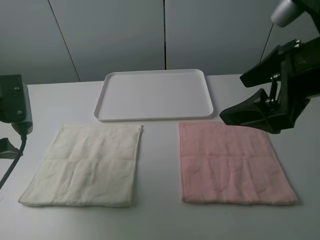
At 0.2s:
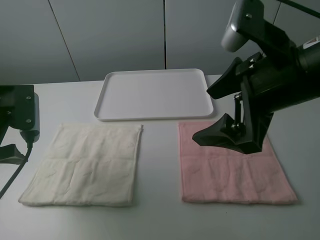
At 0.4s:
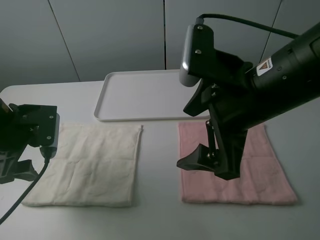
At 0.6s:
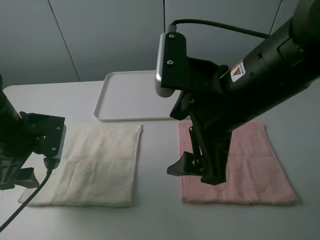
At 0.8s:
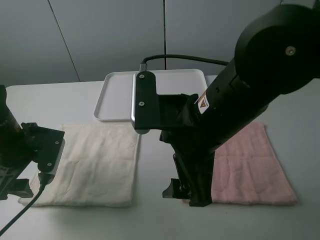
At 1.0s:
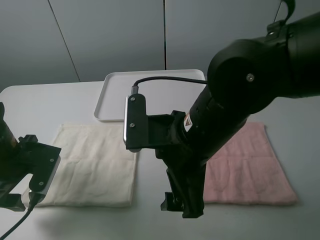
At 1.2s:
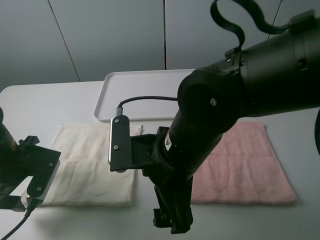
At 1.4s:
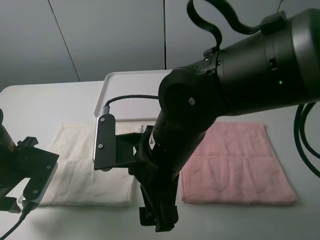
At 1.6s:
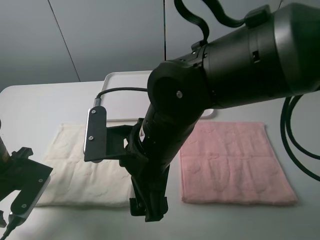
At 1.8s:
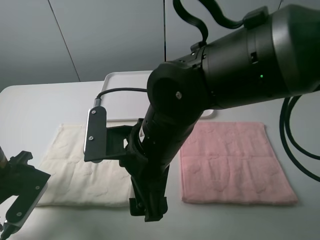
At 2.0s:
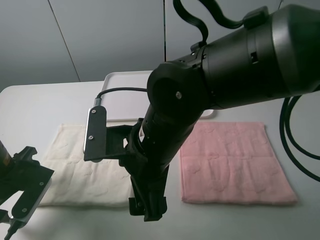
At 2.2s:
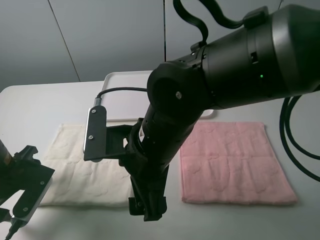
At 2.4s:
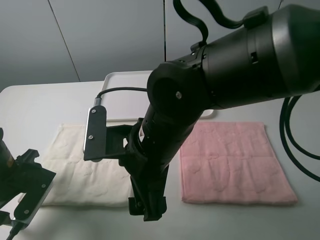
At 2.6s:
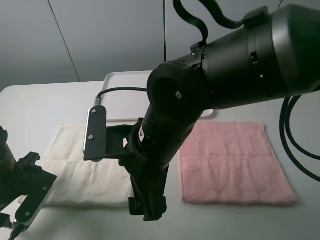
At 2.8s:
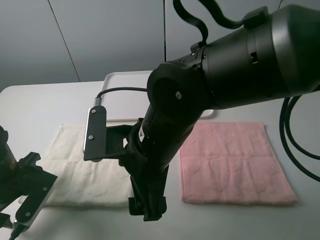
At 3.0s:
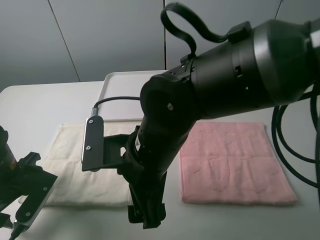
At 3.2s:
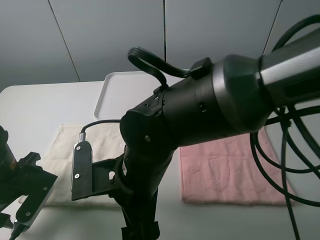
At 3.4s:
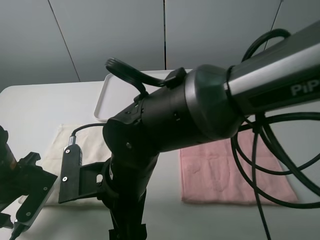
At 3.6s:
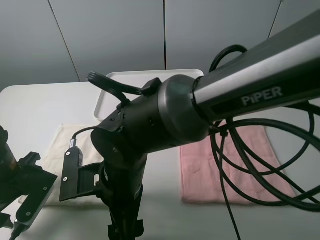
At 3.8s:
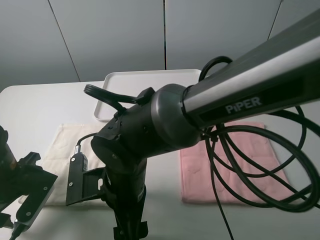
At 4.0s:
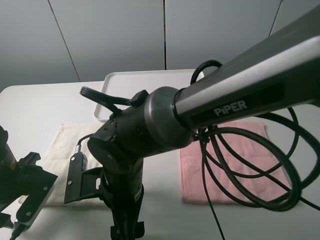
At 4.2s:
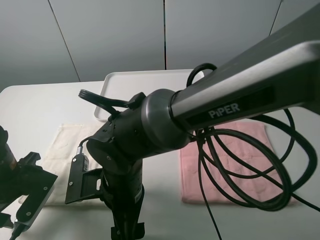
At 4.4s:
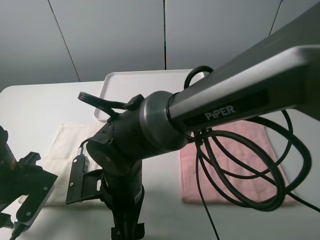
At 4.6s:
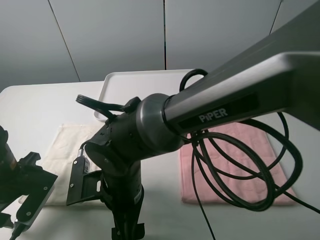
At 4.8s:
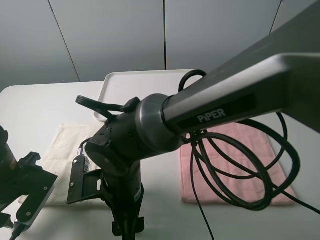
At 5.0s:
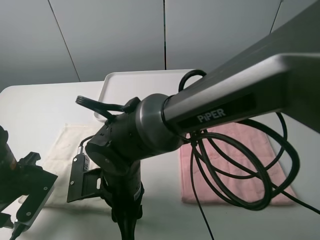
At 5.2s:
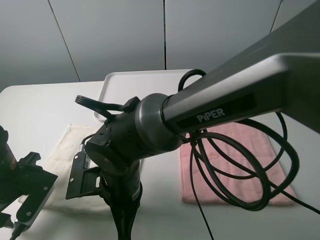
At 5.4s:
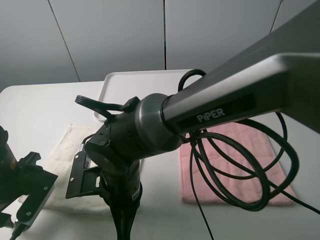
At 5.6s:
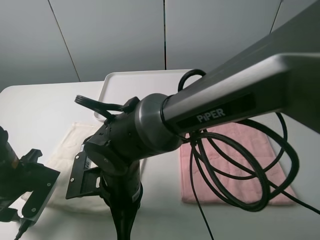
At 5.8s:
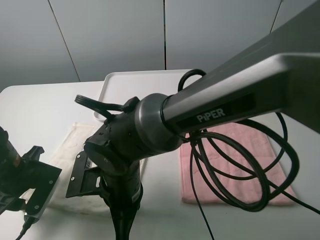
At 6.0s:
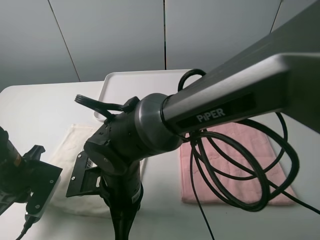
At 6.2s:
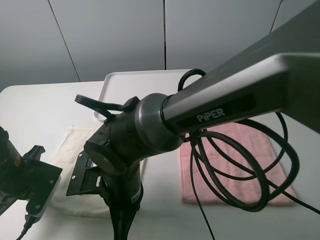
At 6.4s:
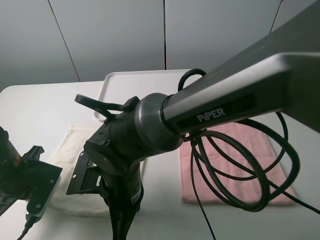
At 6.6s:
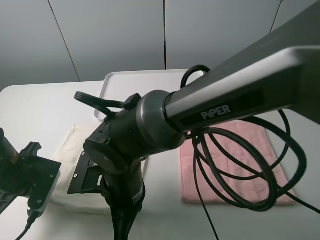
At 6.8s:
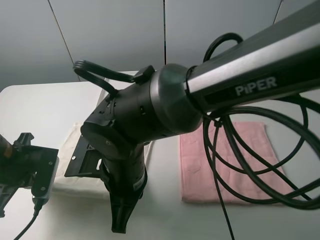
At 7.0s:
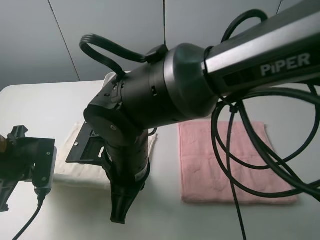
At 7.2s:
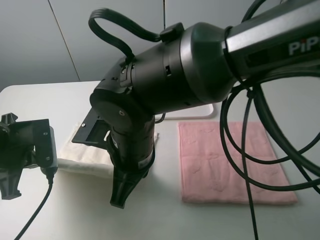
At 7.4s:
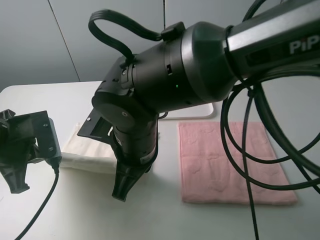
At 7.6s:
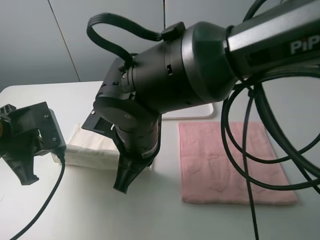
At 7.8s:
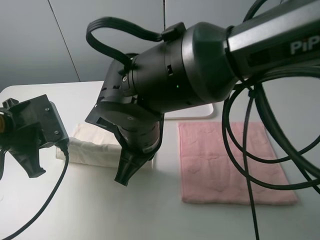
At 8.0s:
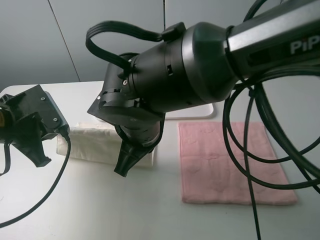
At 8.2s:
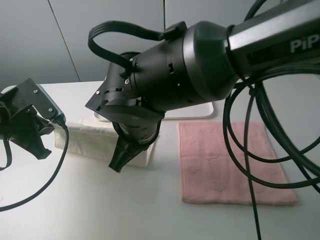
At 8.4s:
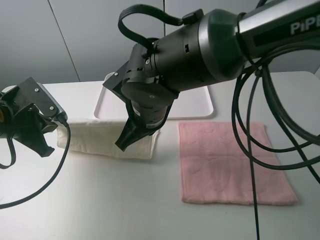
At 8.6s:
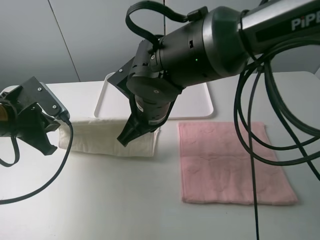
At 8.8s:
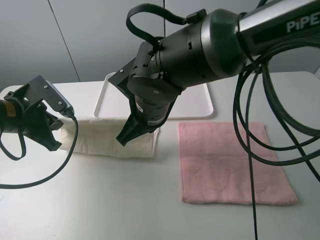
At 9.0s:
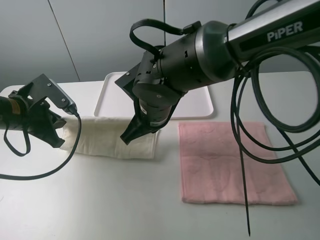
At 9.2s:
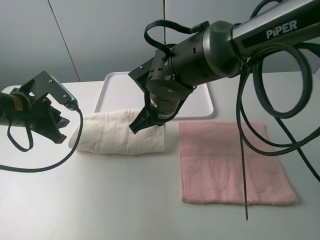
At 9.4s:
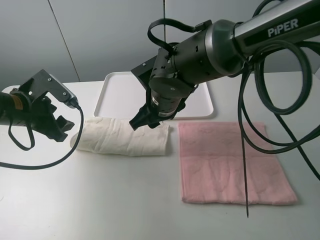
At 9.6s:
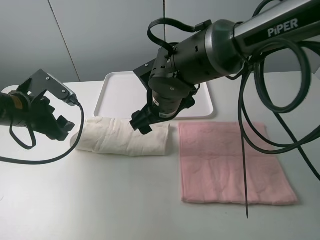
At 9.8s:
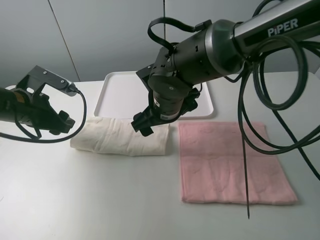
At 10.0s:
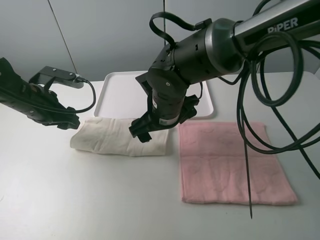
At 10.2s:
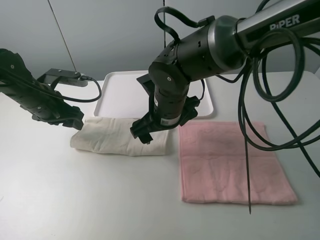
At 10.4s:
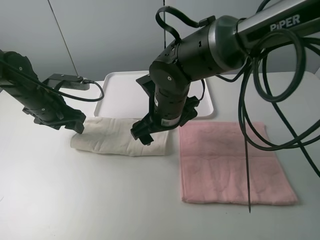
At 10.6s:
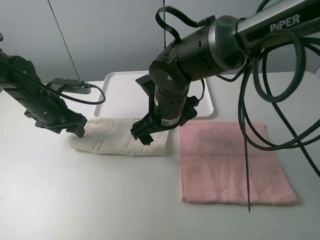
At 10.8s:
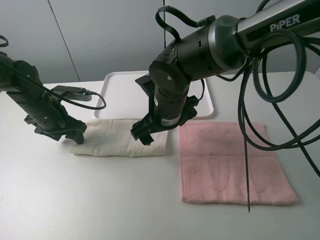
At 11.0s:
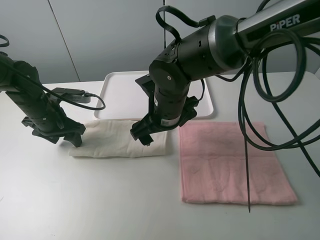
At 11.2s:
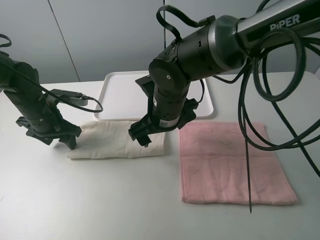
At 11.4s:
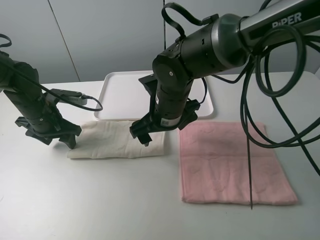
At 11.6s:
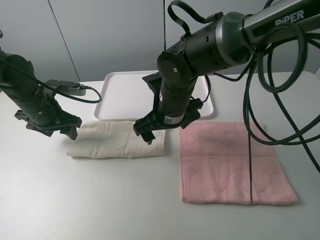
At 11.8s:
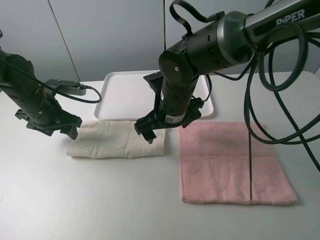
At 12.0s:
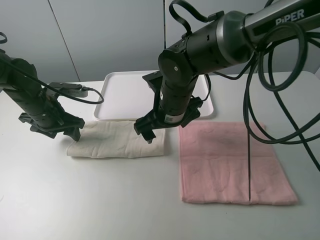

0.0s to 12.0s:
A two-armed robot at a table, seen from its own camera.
Task of the whole recording: fold one of the towels by two grippers and place it on the tray,then fold another towel by two grippers and place it on the folded towel.
Step, 0.0s to 6.2s: Grasp the white towel with the left gripper.
Step, 6.6s to 9.0s: Fold the white towel upwards with the left gripper.
0.0s to 1.6s: The right gripper travels to the left and downward by approximately 20 cm, while the left gripper is displaced downward by some 10 cm.
3.0s to 4.4s: The right gripper goes approximately 5 cm downward.
4.4s to 6.0s: The left gripper closes its fingers. Meanwhile the right gripper closes its fingers.
6.0s to 7.6s: The grippers both shift upward by approximately 10 cm.
7.6s to 9.0s: Both grippers travel together forward, about 5 cm.
9.0s to 10.4s: The left gripper goes approximately 5 cm forward, and opens up. The right gripper opens up.
10.4s to 12.0s: The grippers make only small movements.

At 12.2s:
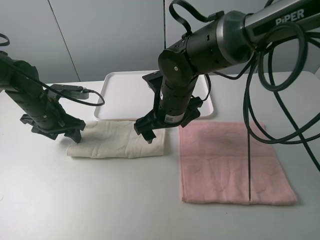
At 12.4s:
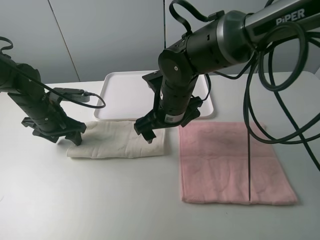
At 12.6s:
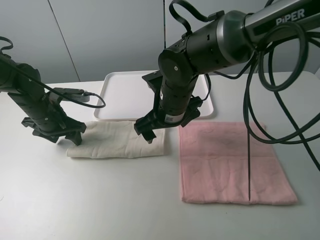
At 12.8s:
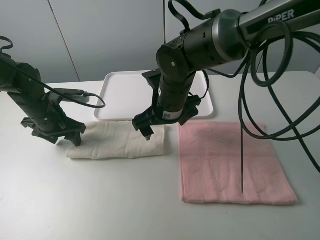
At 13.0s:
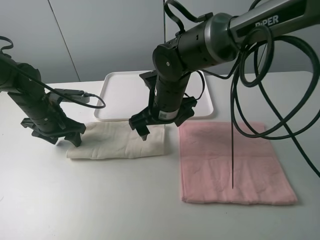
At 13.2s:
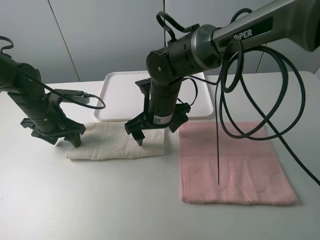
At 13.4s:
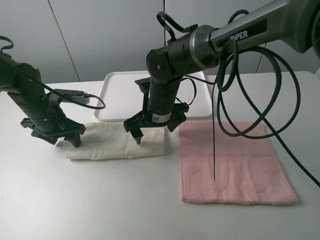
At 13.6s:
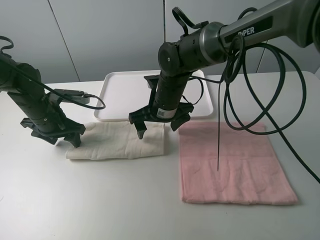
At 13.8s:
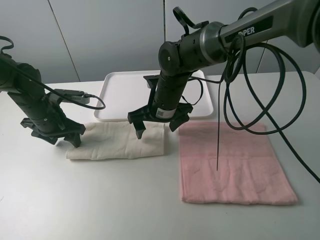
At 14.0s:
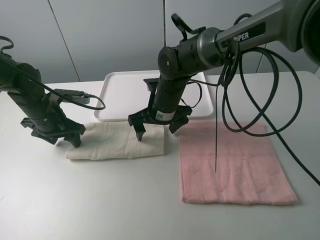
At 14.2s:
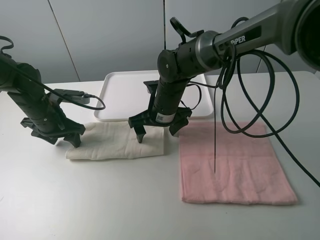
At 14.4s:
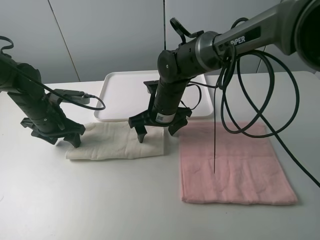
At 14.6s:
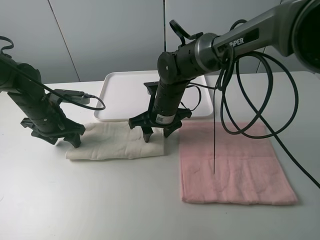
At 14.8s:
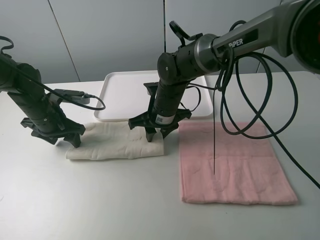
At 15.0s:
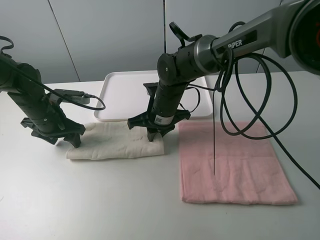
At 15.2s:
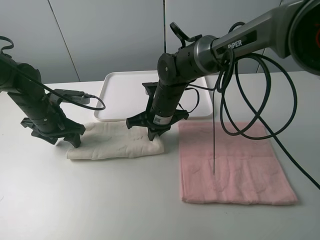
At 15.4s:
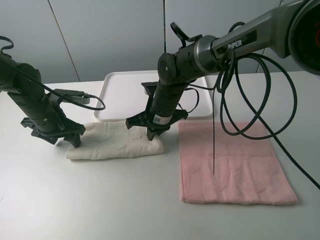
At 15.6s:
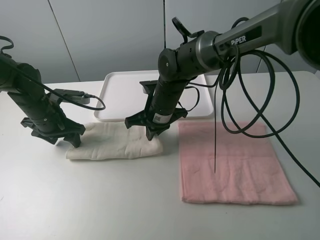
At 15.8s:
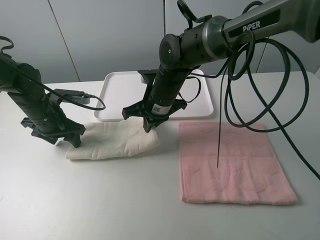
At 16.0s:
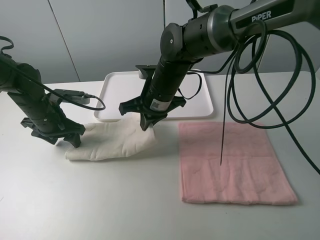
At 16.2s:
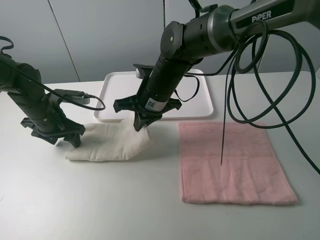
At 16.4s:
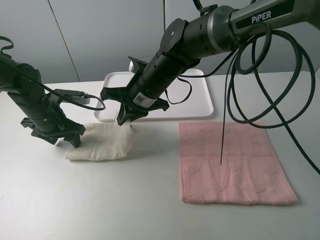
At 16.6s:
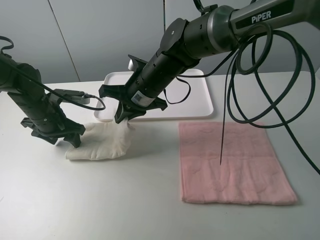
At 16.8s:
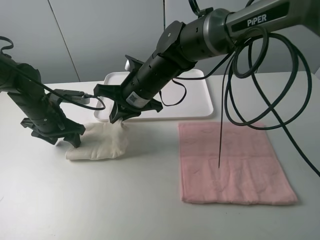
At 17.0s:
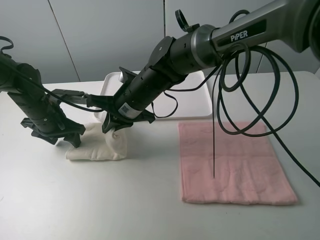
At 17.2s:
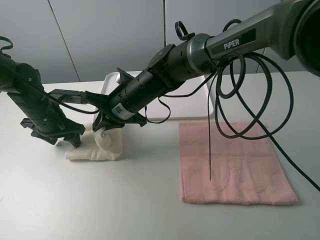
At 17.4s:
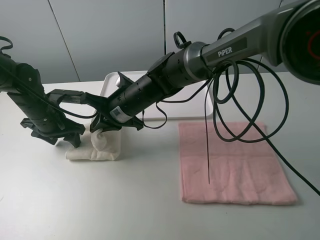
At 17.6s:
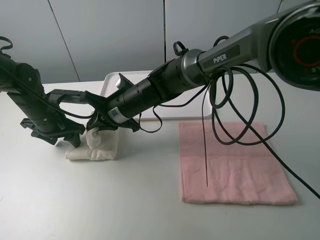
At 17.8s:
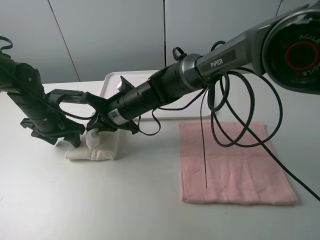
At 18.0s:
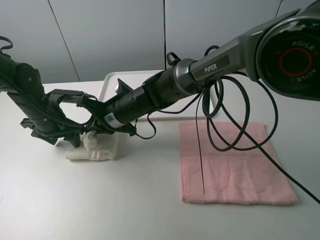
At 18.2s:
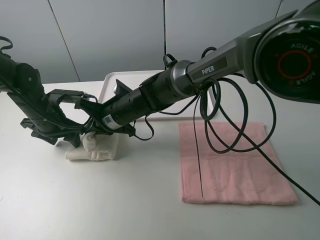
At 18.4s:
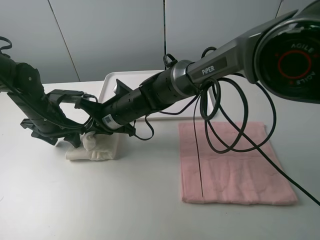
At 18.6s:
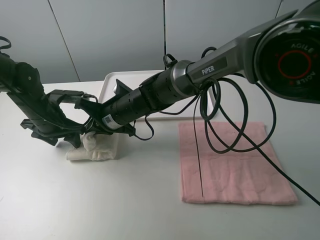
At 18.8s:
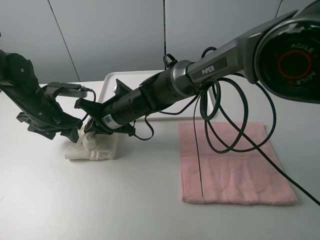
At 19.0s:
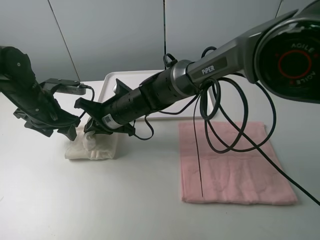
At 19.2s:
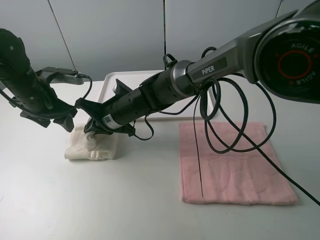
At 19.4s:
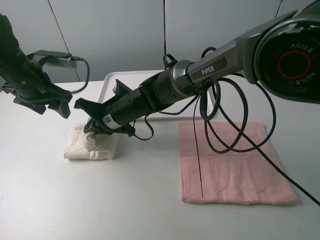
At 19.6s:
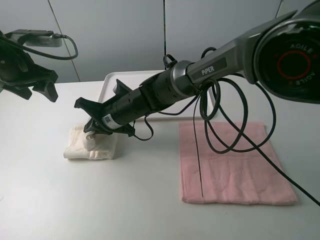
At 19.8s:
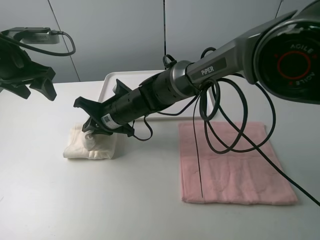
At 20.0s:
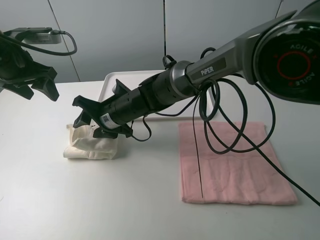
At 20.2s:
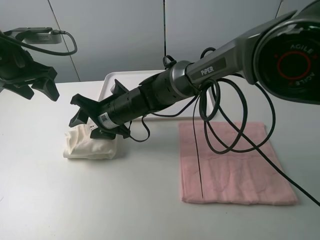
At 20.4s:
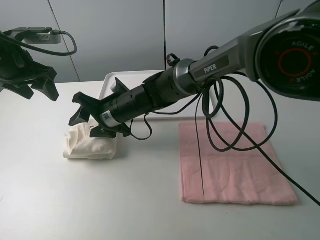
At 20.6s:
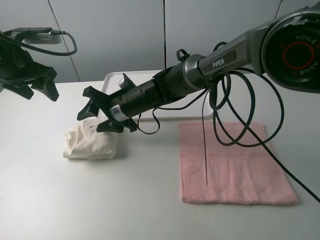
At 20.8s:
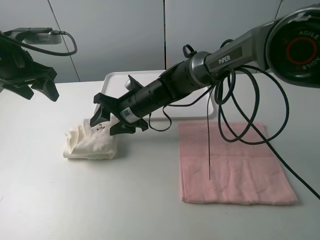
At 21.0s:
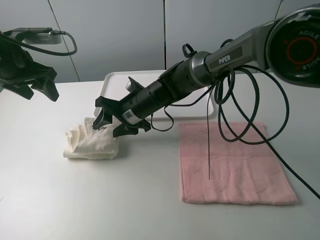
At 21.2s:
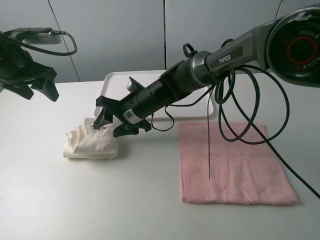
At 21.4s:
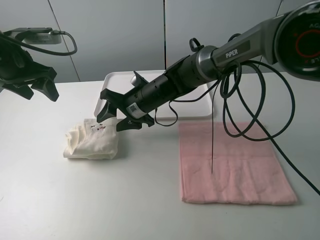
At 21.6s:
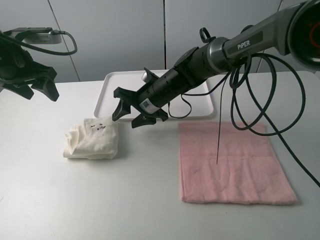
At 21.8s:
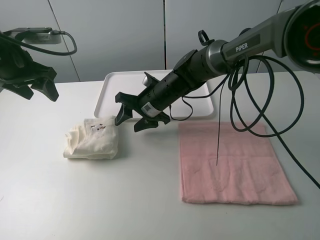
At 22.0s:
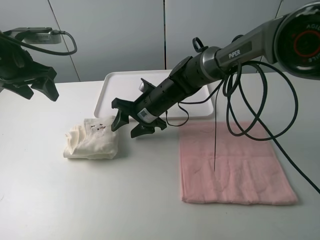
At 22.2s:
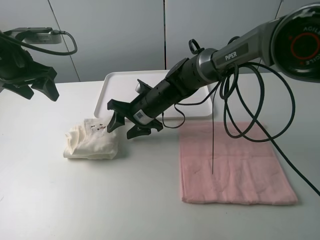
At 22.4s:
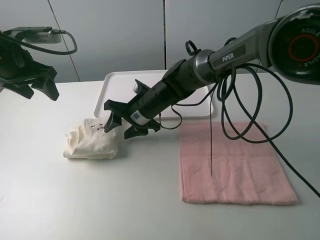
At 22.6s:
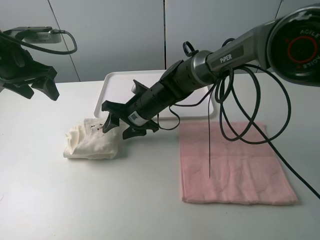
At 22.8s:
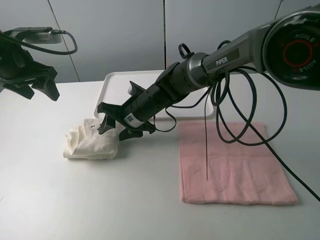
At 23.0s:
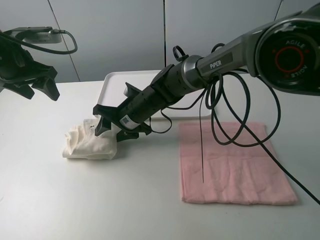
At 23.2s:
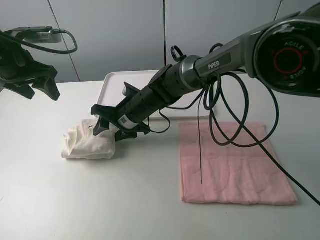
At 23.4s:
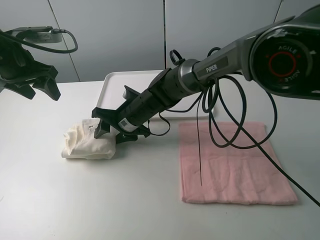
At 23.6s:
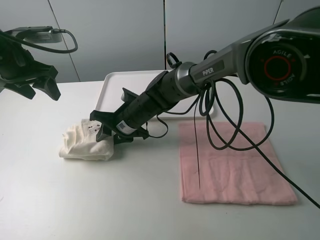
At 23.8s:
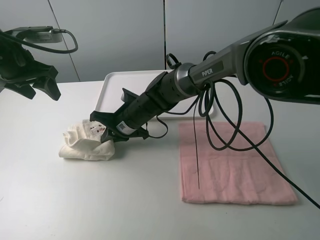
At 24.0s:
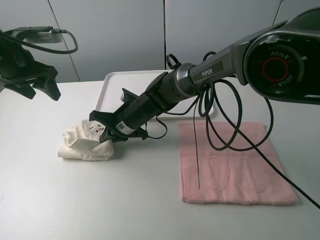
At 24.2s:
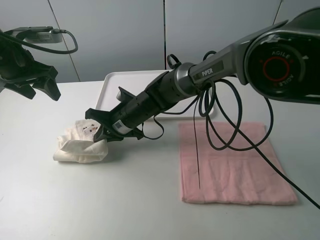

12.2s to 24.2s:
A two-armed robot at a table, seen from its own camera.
Task of the whole recording: fold one of the towels by two grippers and place it on the tray,then fold another towel by two grippers and place it on the folded towel.
Step, 13.2s to 15.6s: Grasp the white towel with the right gripper.
Step, 15.8s to 20.4s: Fold the white towel from right to left with right gripper.
Step, 20.6s to 23.8s: Grasp the white towel with the right gripper.
12.2s to 13.8s: The right gripper shifts by roughly 5 cm.
13.8s to 15.2s: The right gripper closes its fingers.
15.2s to 16.6s: The right gripper travels upward by roughly 5 cm.
16.6s to 18.2s: The right gripper heads downward and to the left, covering about 10 cm.
18.2s to 19.8s: The left gripper heads upward, covering about 15 cm.
19.8s to 21.2s: The right gripper opens its fingers.
21.2s to 22.6s: The grippers move only a little.
22.6s to 24.2s: The right gripper closes up.
